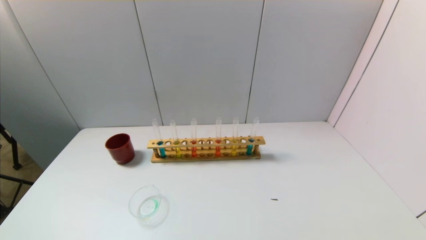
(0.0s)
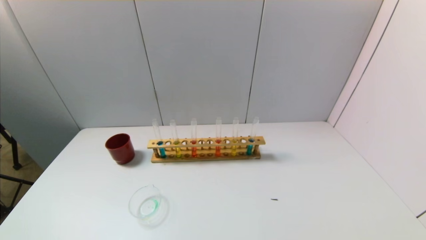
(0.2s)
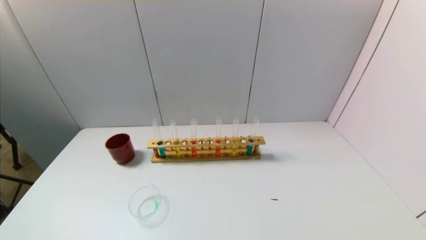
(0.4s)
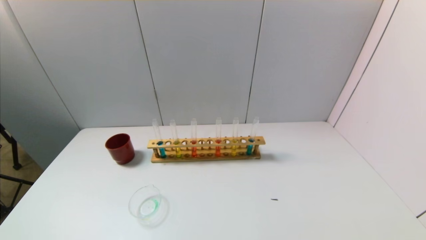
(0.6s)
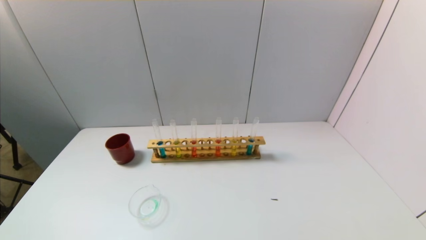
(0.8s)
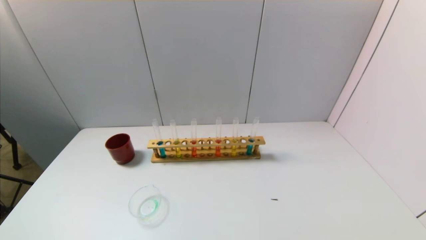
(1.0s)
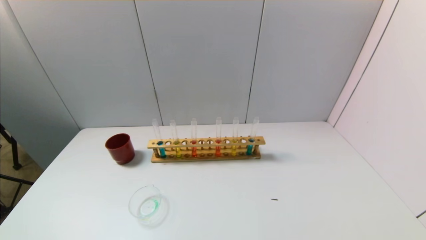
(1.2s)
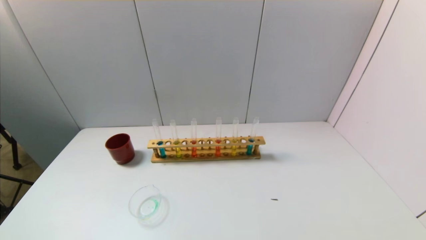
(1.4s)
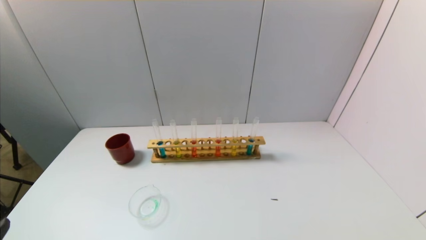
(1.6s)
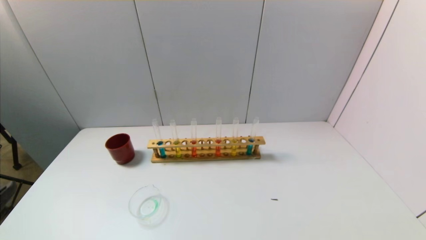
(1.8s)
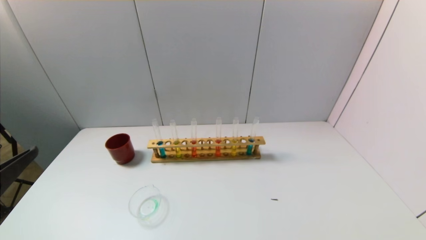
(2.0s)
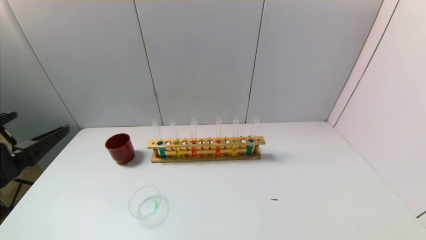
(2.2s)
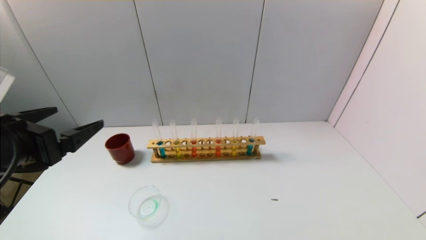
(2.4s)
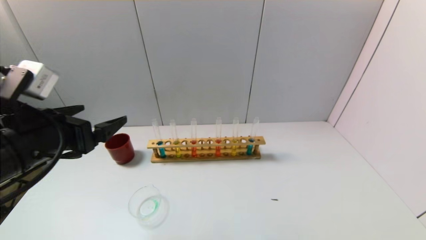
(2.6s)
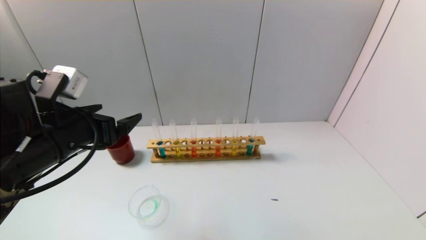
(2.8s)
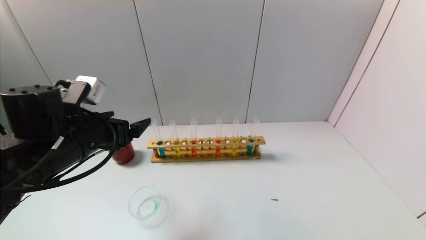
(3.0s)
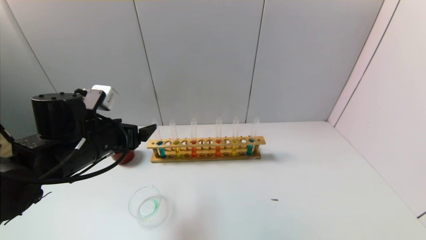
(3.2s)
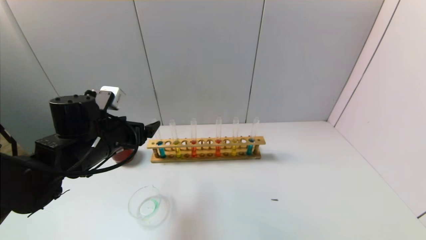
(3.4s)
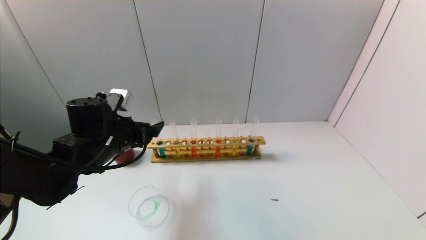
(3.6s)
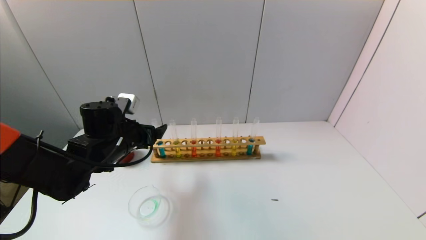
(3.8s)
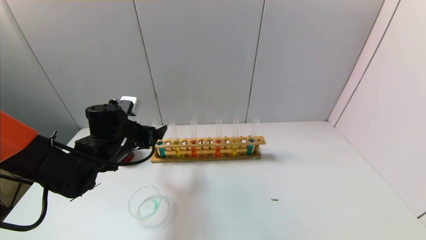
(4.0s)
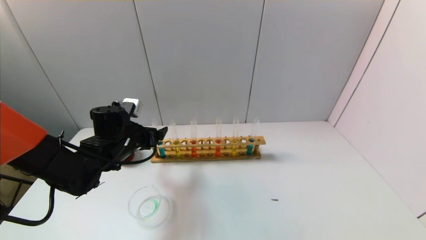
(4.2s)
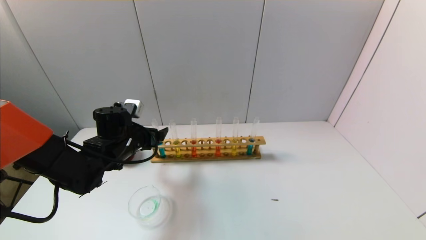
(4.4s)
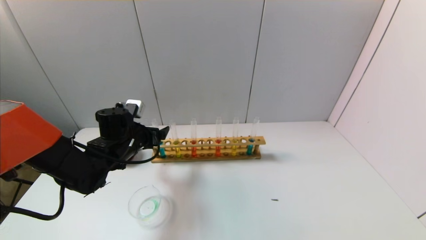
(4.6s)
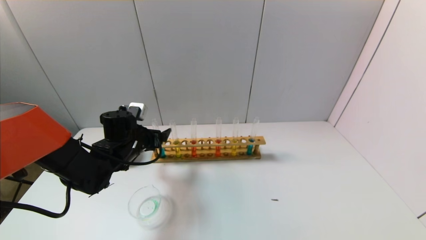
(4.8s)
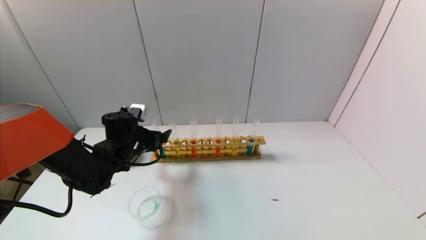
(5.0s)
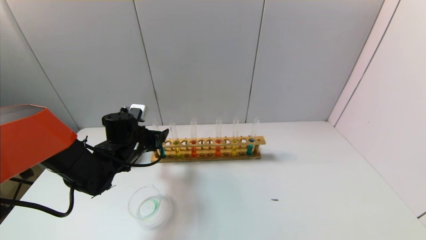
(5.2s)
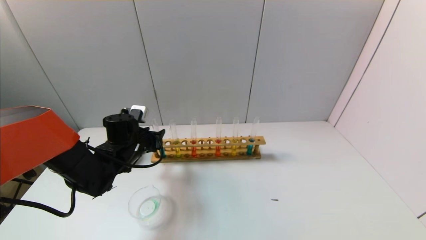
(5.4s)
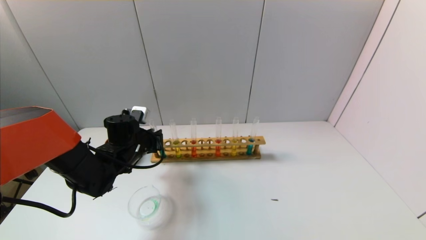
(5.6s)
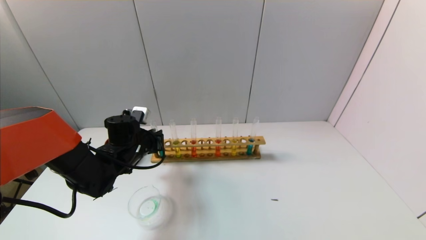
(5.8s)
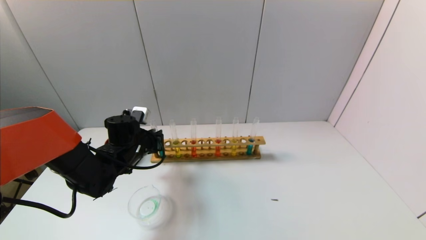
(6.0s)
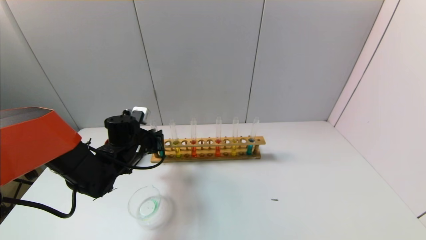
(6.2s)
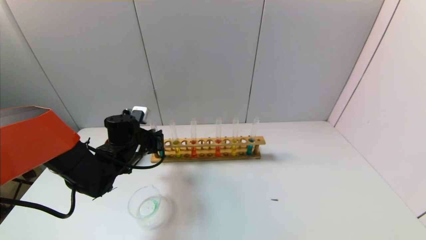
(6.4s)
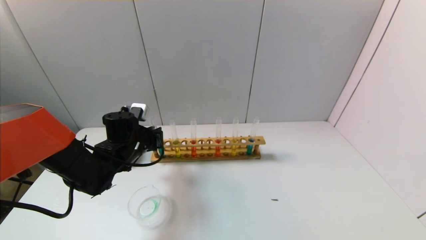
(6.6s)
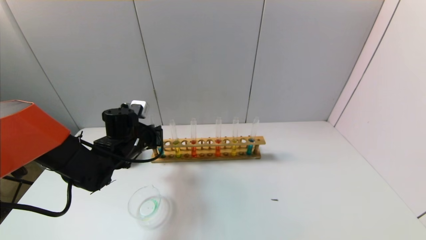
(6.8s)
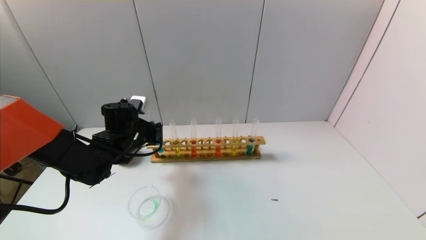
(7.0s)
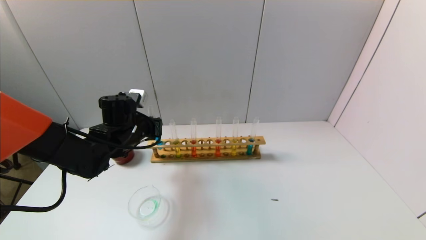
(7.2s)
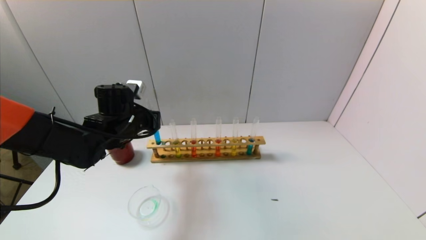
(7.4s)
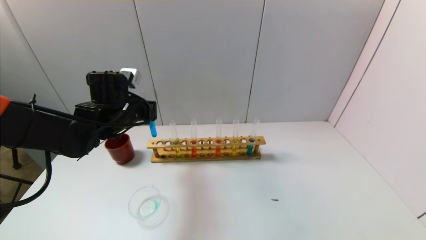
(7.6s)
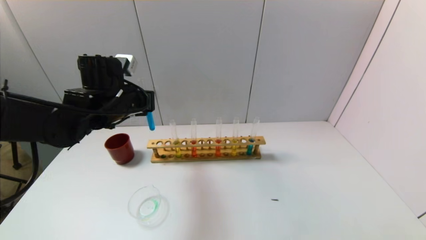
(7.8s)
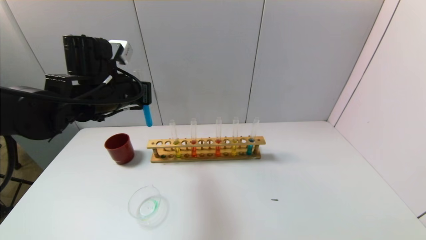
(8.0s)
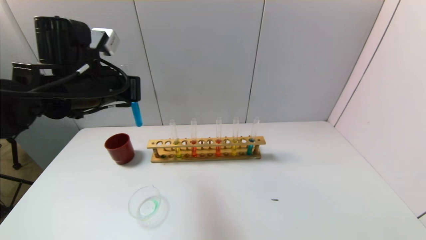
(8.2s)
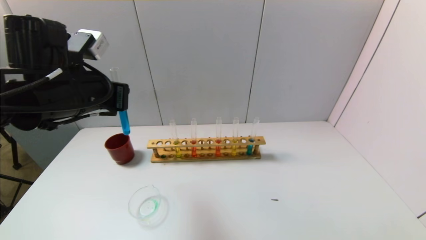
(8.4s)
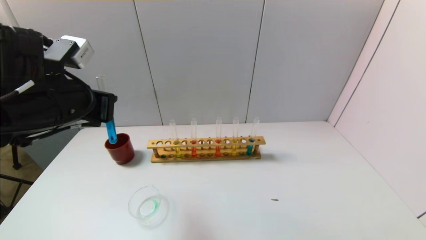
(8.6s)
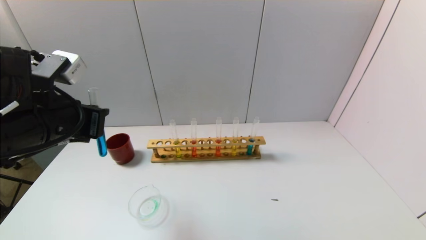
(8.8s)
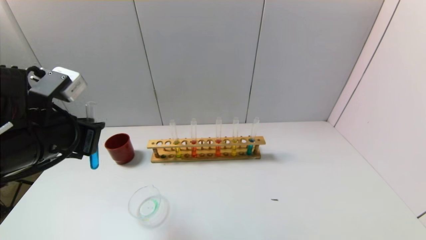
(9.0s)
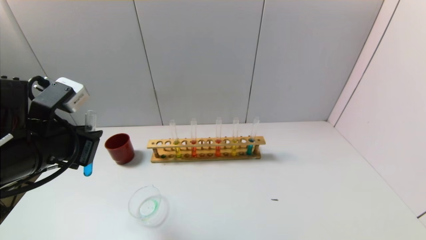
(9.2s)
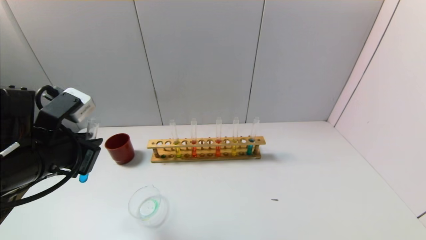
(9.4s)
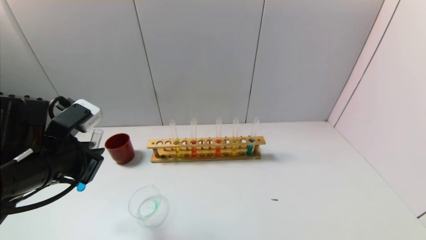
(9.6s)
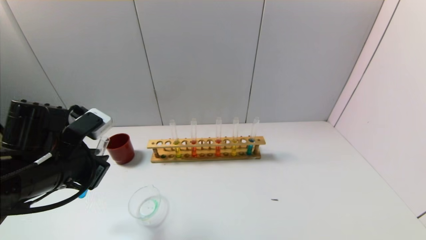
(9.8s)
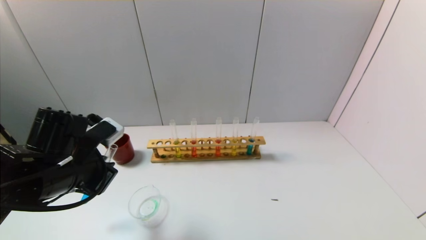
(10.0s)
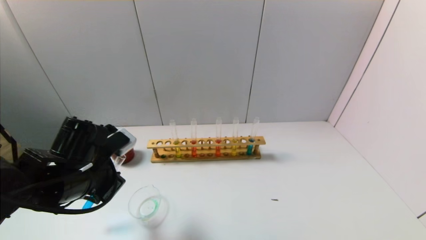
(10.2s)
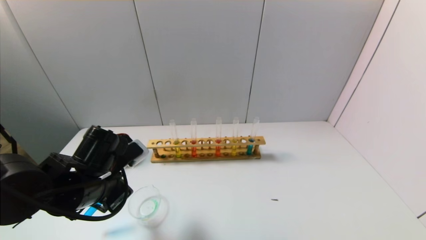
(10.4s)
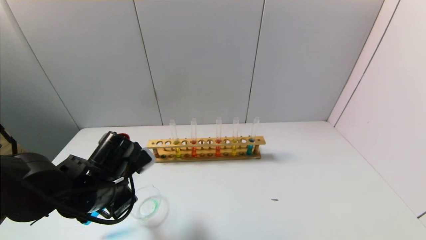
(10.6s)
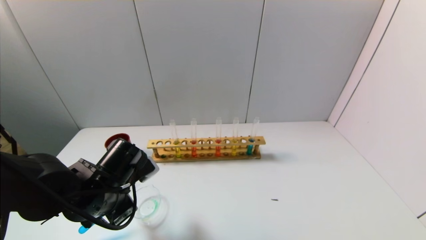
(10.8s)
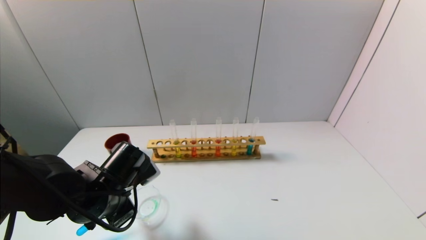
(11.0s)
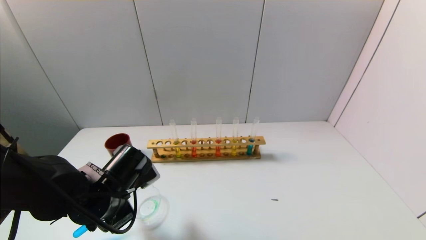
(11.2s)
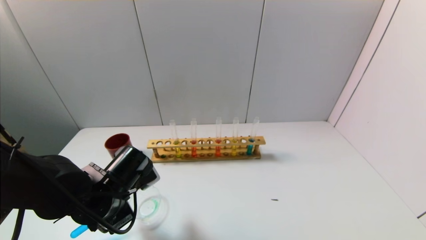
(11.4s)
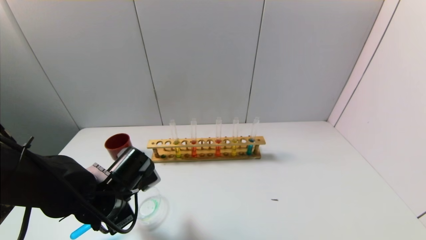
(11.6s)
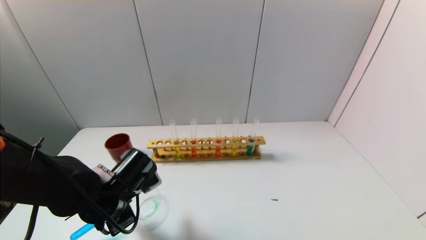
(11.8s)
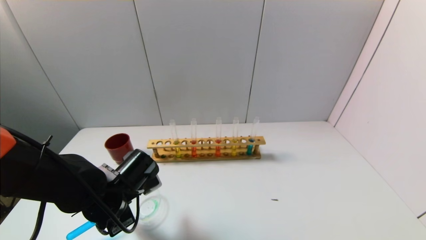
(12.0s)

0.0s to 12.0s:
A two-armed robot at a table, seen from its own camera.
Task of the whole recording: pick up the test tube with yellow pigment and the test tube with blue pigment by grippers and pour them into the beaker.
Step, 0.0s to 5.8s: Grasp the blue reagent with the left gripper.
1.6s to 3.0s: The left gripper goes about 25 cm forward.
3.0s to 4.4s: The left gripper goes approximately 15 cm forward and downward.
4.4s to 6.0s: The left gripper closes up.
6.0s to 7.6s: The left gripper shifts approximately 10 cm upward.
7.6s to 9.0s: The left gripper is displaced backward by about 15 cm.
9.0s to 10.4s: The left gripper heads downward, covering approximately 10 cm.
10.4s to 12.0s: The left gripper is displaced downward by about 5 cm.

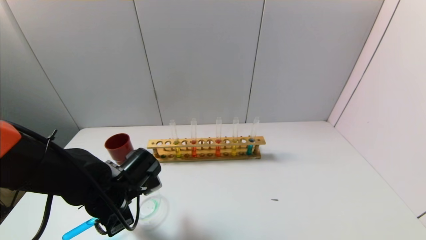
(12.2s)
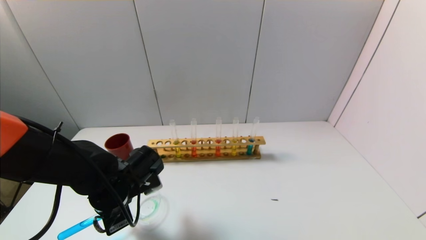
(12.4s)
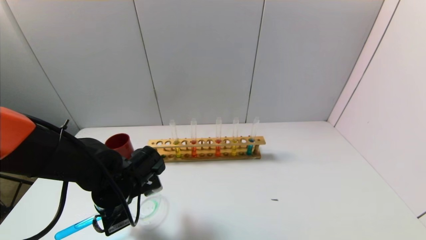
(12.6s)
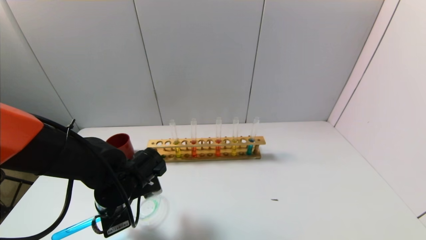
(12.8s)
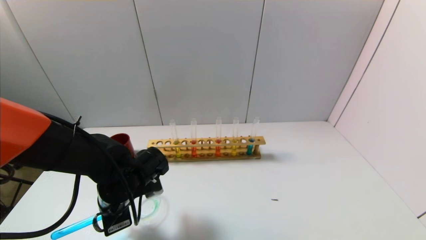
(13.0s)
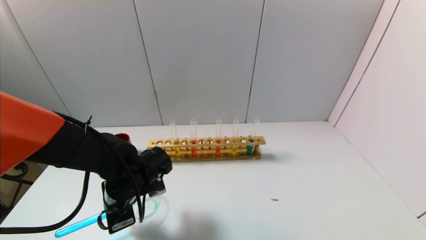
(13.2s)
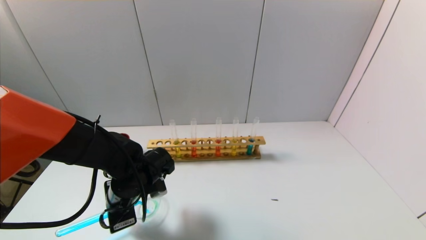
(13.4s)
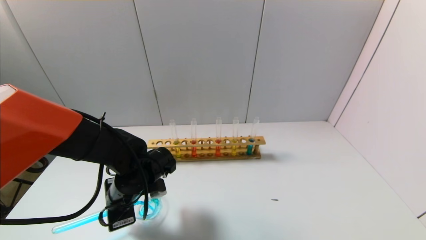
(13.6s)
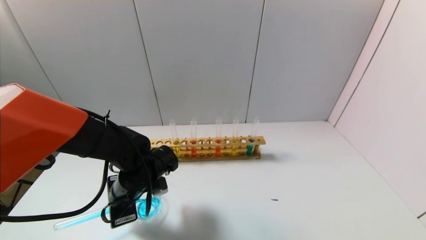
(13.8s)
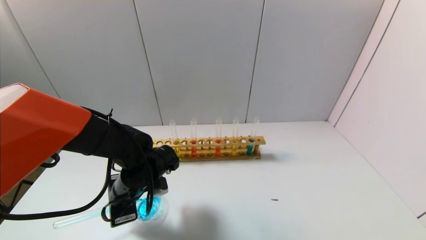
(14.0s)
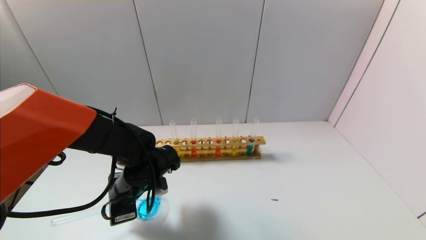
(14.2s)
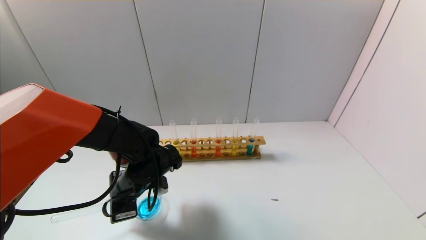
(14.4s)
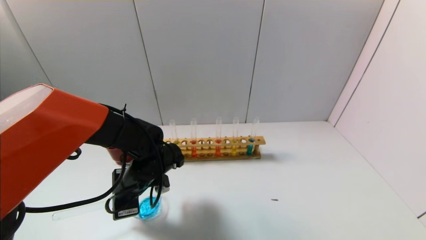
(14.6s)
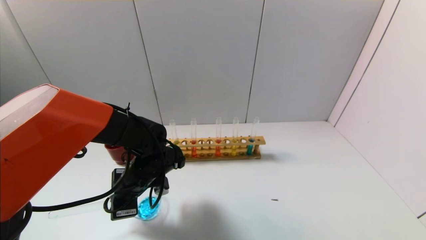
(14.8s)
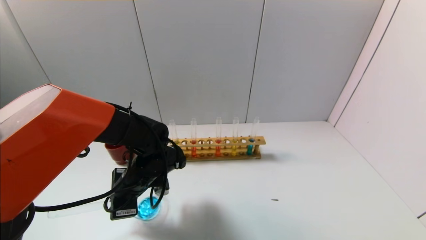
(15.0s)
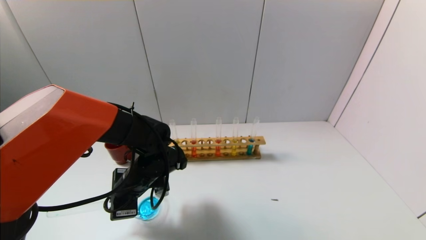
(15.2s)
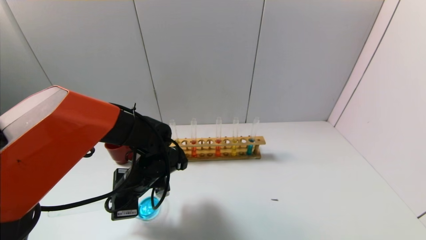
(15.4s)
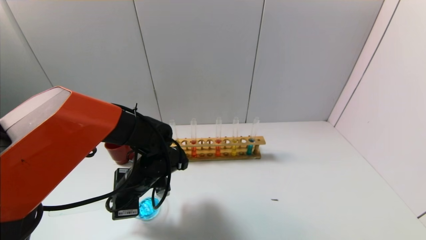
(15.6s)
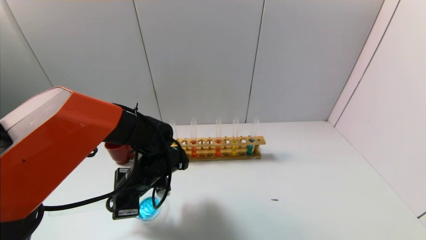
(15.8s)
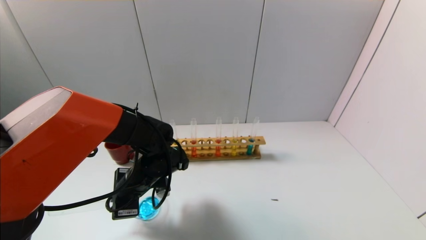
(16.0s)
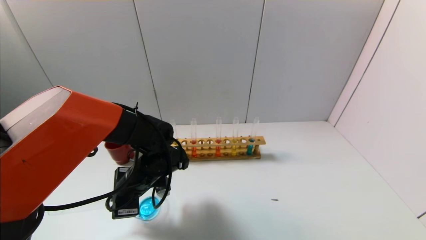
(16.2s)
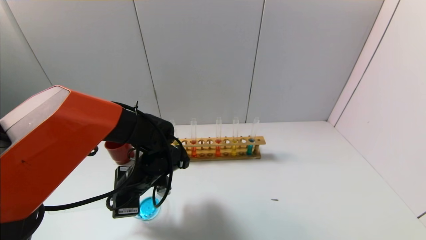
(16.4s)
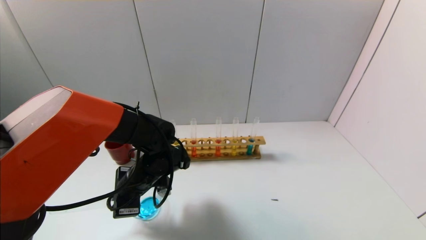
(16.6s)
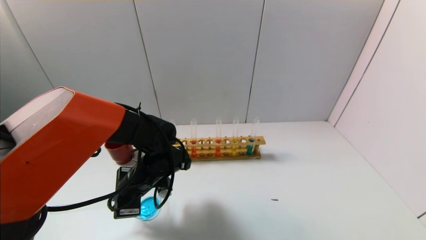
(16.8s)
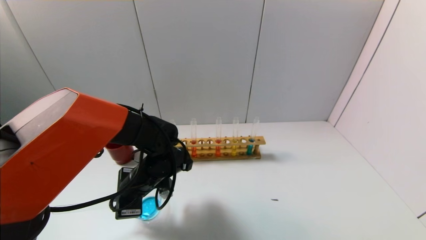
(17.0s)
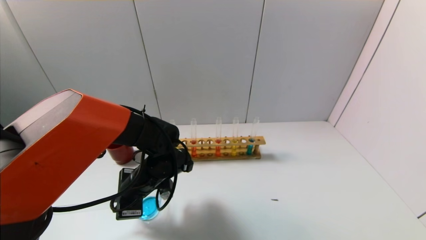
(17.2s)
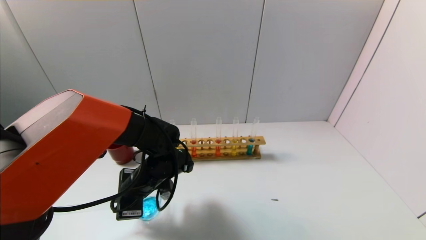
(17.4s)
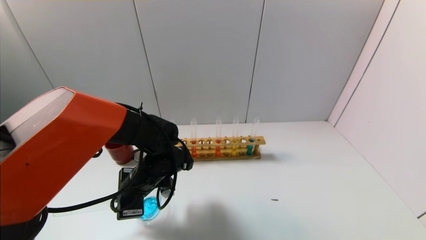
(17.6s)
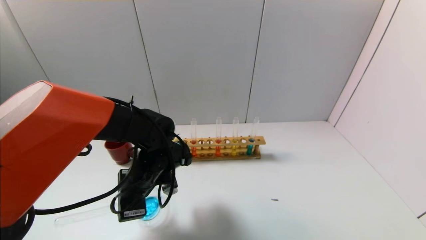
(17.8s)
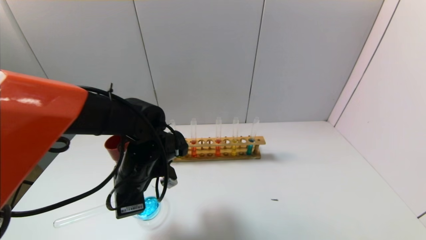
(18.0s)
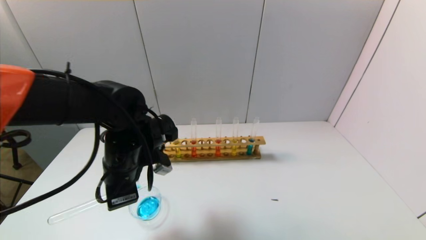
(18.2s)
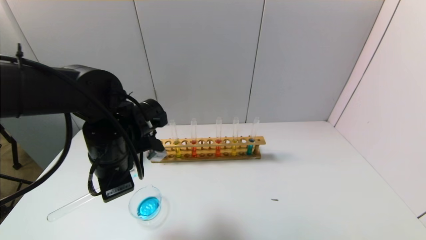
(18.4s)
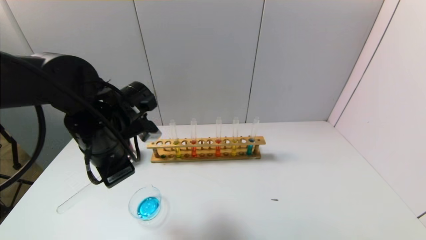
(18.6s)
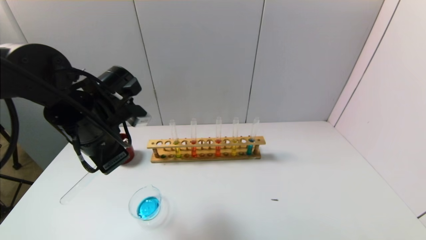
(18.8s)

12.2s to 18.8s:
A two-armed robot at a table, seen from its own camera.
Task of the whole recording: pick up the test tube with yellow pigment and the test tube with blue pigment by grippers and pour them into the beaker.
Step, 12.2s to 16.2s: Pour the blue reagent into the graduated cylinder with the left gripper.
13.8s to 15.4s: The grippers stay close to where they were, moving slightly.
15.4s to 17.2s: Neither gripper changes place.
17.2s to 18.8s: The left gripper is displaced upward and to the left by about 15 cm.
